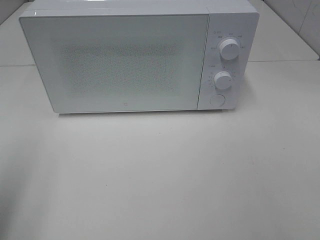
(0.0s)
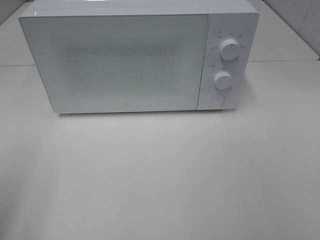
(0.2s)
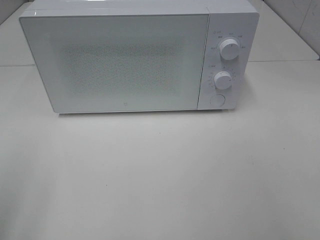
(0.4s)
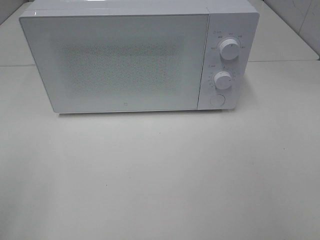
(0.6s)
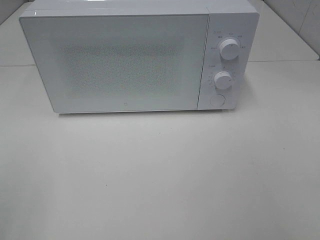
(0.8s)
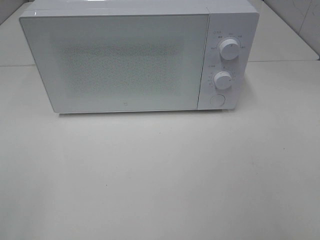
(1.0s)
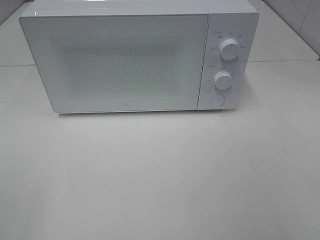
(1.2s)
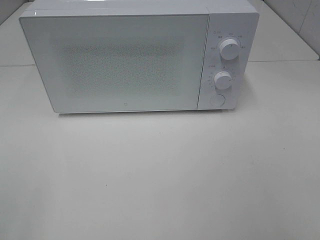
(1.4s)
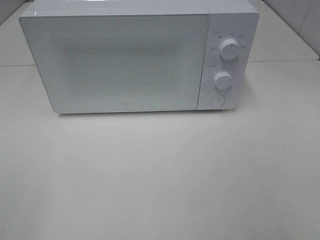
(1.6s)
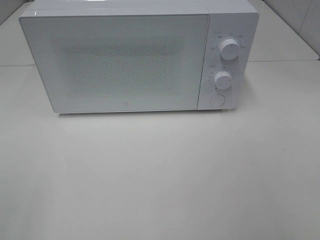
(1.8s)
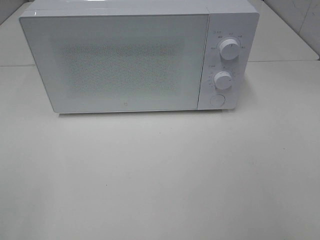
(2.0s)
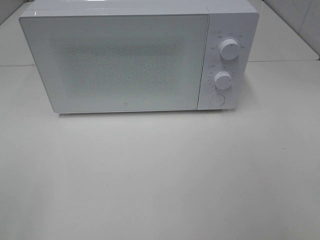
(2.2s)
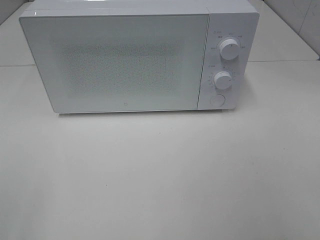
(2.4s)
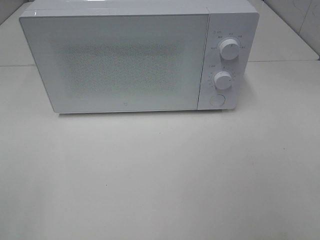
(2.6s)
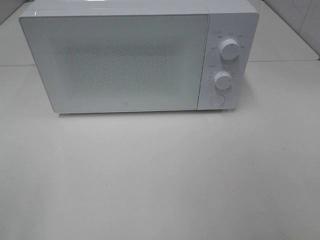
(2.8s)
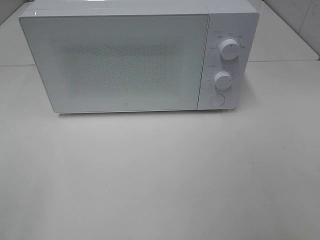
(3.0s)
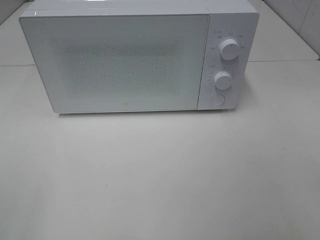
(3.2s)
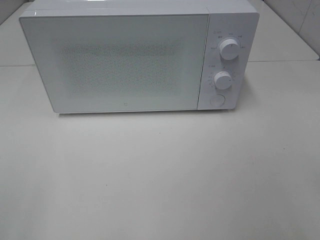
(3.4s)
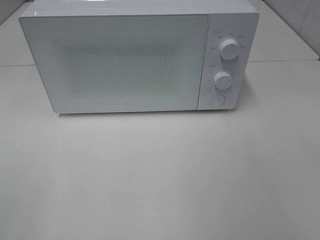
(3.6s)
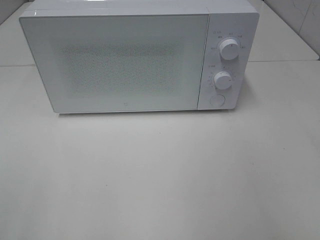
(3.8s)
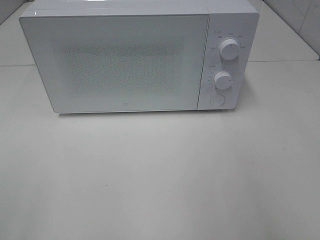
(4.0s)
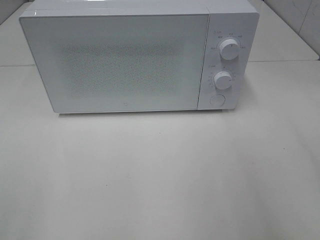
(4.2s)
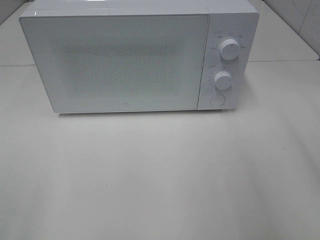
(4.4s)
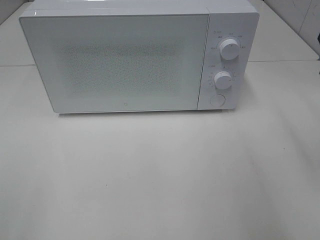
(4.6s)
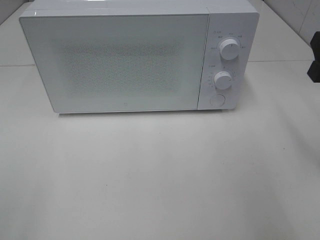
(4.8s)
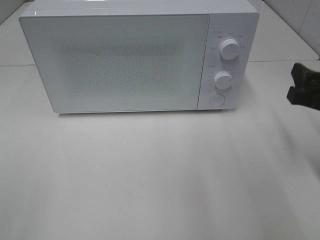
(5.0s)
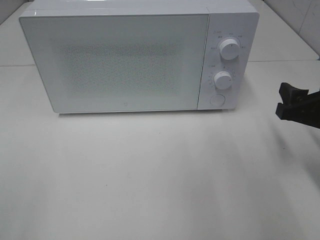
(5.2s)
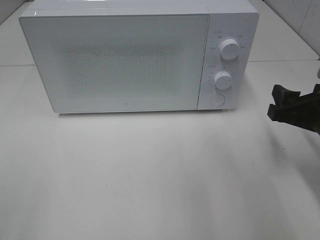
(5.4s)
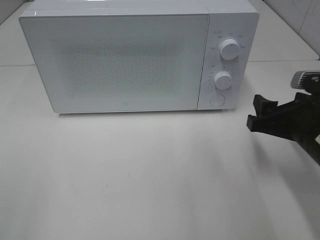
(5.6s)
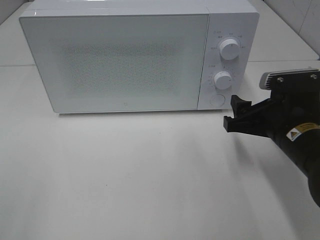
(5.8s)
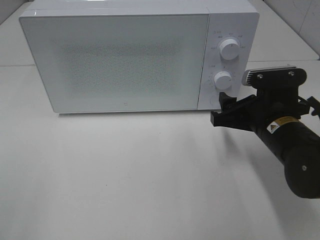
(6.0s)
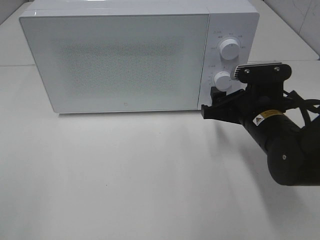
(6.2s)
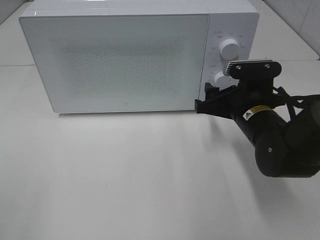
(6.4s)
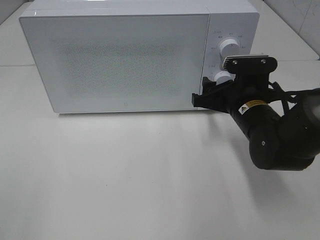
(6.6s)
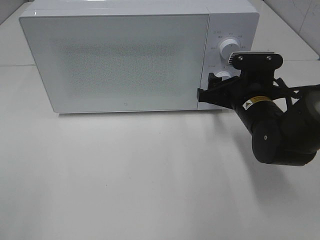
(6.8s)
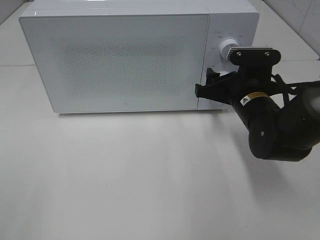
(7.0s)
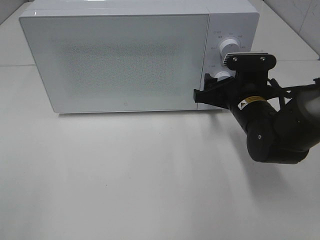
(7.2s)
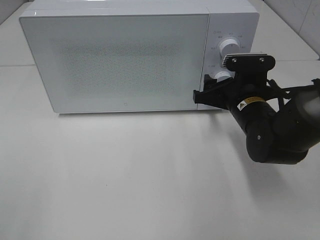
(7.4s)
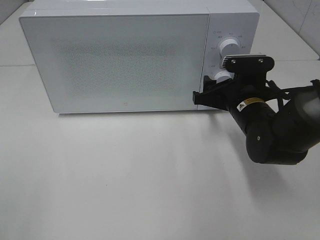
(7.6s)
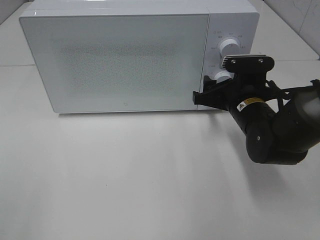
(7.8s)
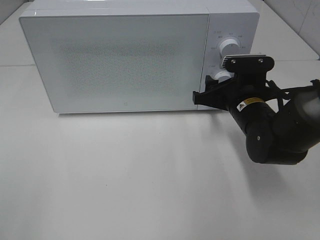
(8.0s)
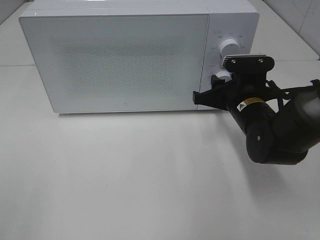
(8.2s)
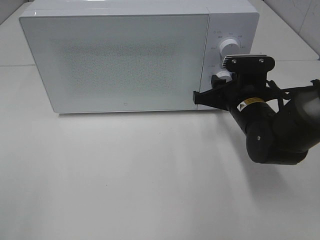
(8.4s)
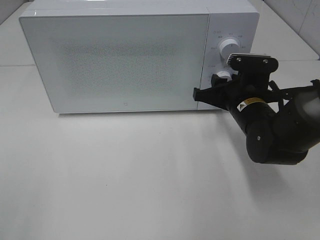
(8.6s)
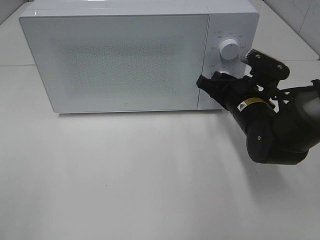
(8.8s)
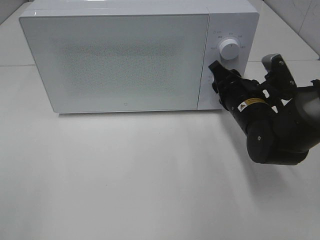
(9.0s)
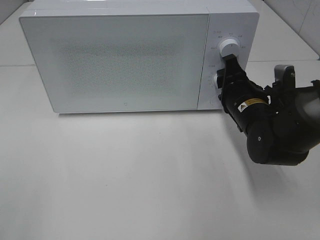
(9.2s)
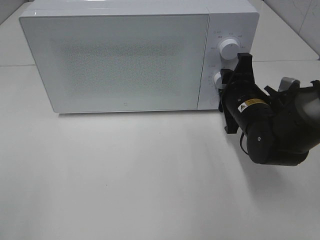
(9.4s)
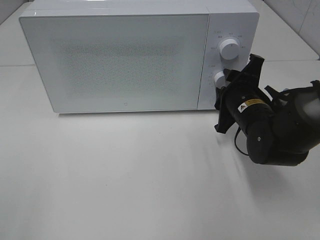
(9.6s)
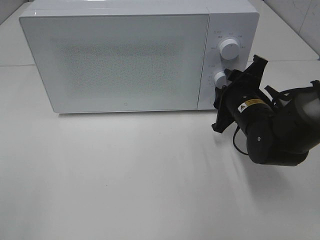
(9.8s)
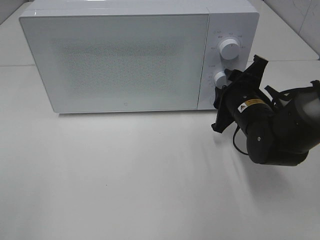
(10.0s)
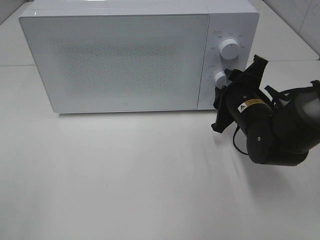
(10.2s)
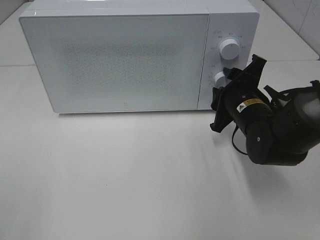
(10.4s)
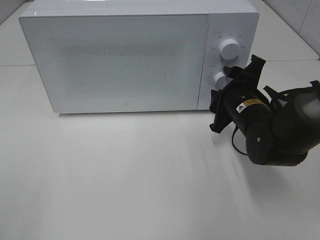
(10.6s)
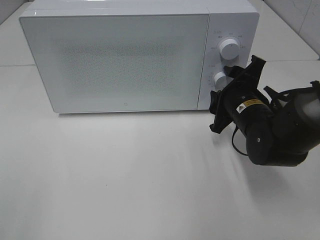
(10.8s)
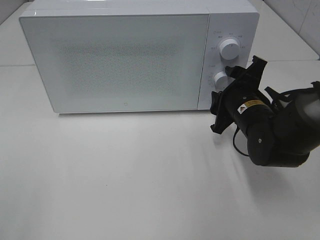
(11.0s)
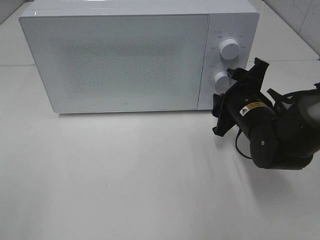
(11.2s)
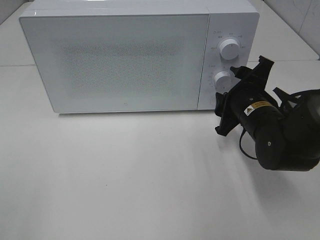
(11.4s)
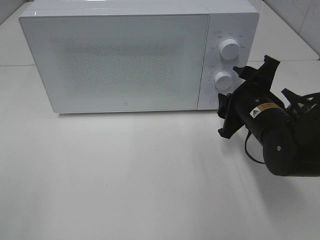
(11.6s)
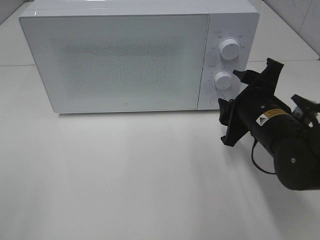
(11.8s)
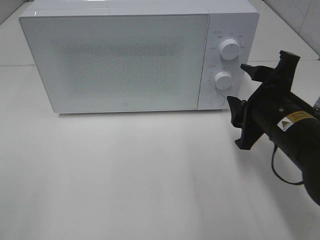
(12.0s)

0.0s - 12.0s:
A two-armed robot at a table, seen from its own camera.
Task of the whole recording: Heat the burger.
Step, 0.0s - 10.4s: Right hand: twist timer button.
0.0s - 1.6s: The left gripper moves backward, about 15 cm.
1.6s - 3.0s: Both grippers stay put.
4.4s - 6.0s: The right gripper shifts roughly 20 cm downward, forward and to the left.
6.0s - 7.6s: The right gripper heads forward, covering approximately 5 cm.
10.4s - 12.0s: The right gripper goes about 10 cm backward and upward.

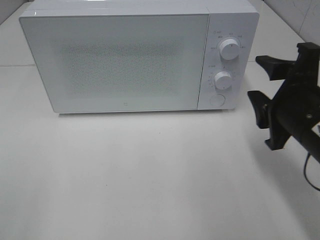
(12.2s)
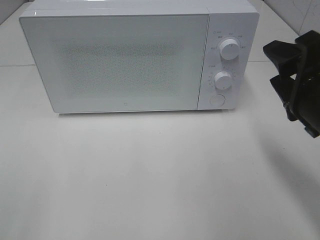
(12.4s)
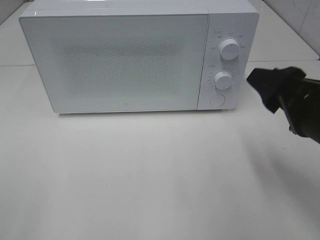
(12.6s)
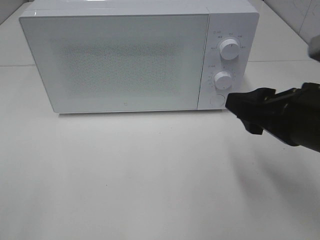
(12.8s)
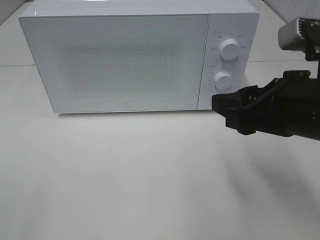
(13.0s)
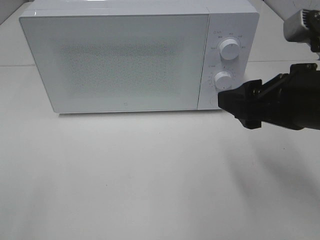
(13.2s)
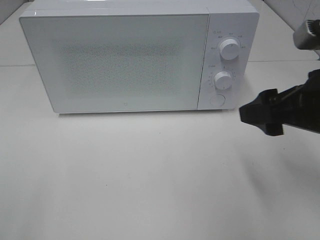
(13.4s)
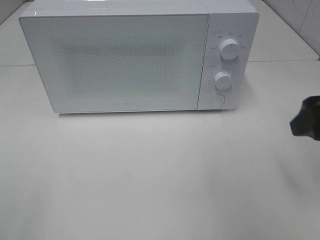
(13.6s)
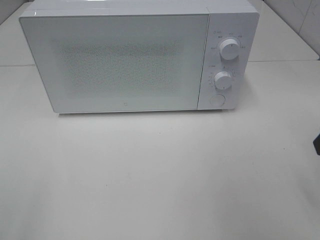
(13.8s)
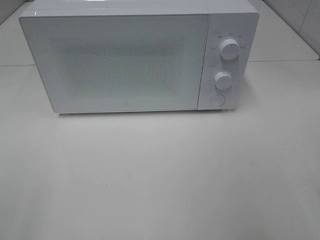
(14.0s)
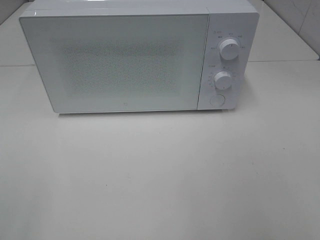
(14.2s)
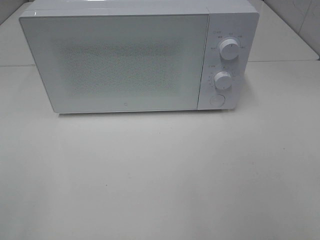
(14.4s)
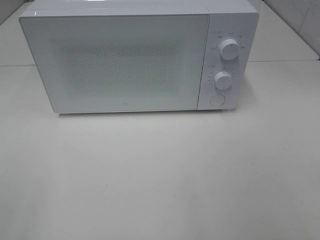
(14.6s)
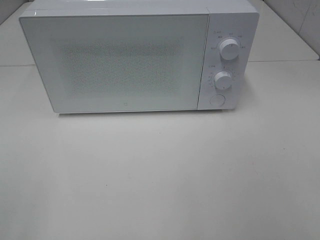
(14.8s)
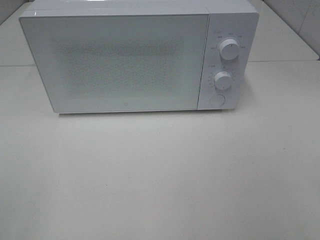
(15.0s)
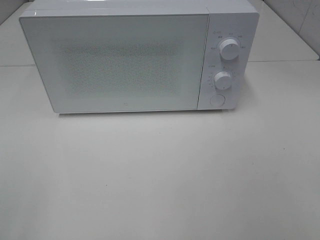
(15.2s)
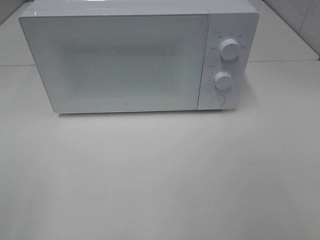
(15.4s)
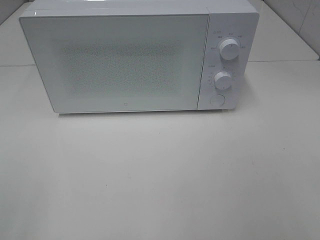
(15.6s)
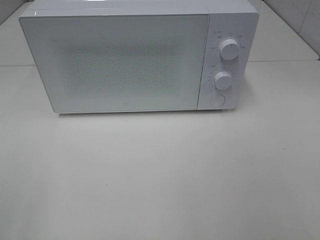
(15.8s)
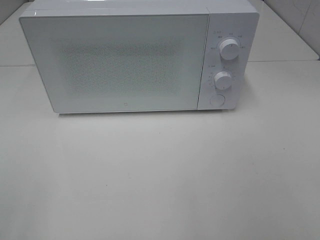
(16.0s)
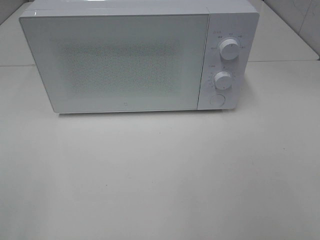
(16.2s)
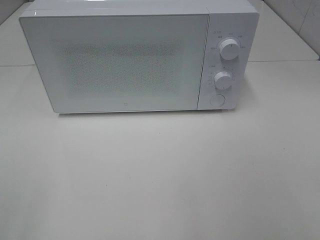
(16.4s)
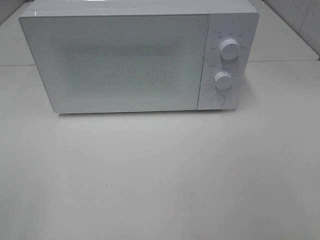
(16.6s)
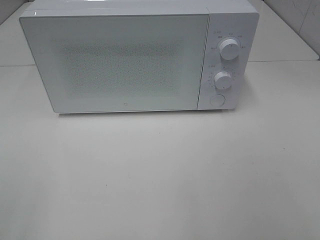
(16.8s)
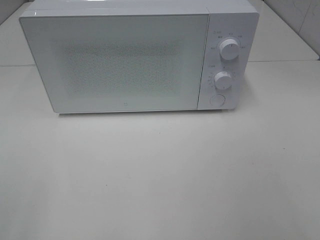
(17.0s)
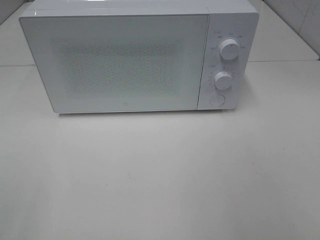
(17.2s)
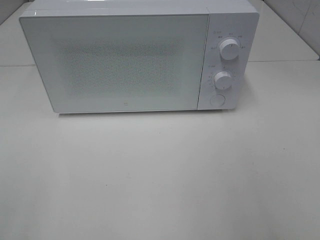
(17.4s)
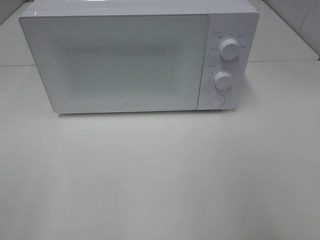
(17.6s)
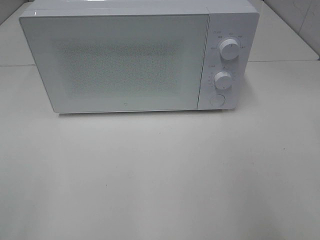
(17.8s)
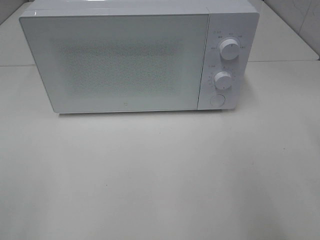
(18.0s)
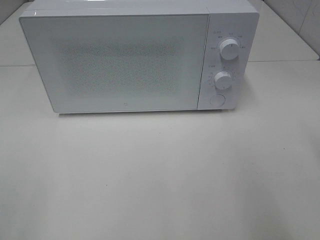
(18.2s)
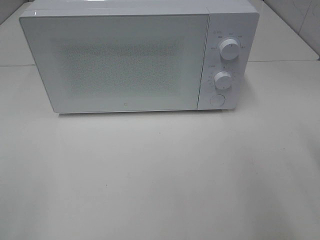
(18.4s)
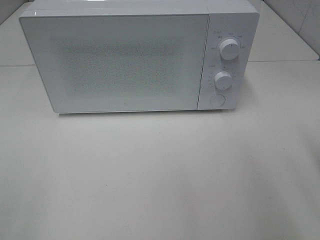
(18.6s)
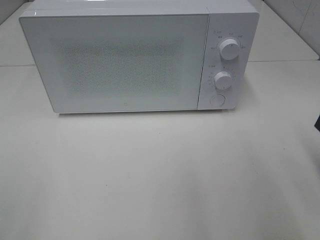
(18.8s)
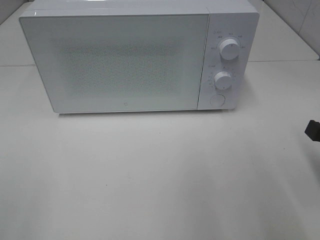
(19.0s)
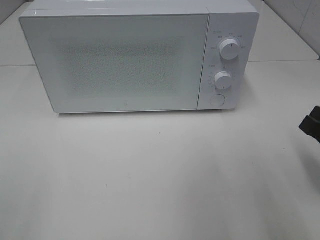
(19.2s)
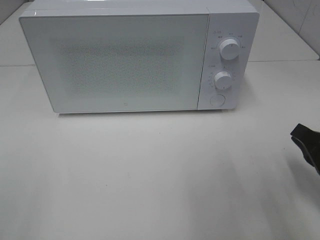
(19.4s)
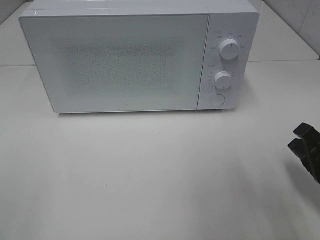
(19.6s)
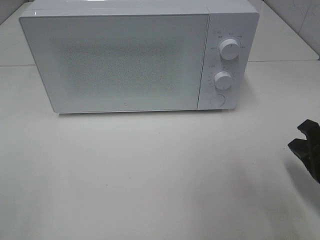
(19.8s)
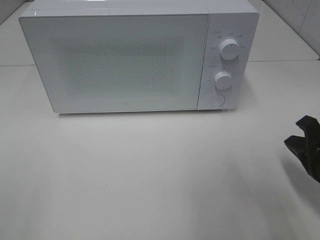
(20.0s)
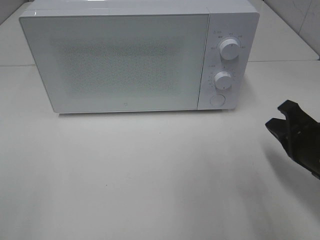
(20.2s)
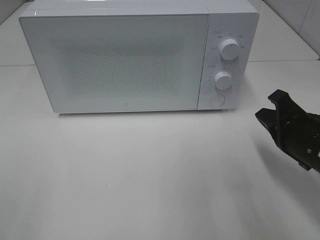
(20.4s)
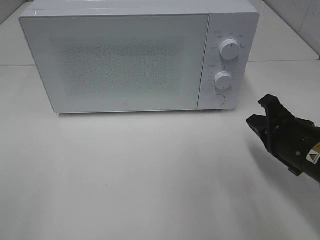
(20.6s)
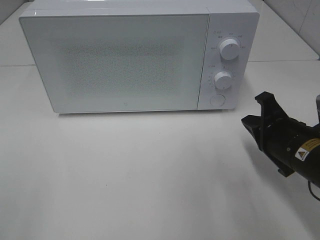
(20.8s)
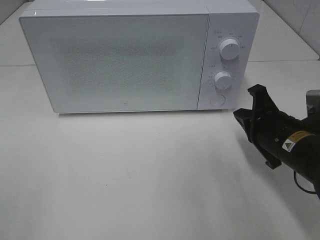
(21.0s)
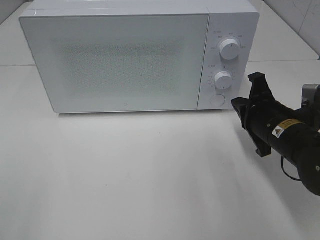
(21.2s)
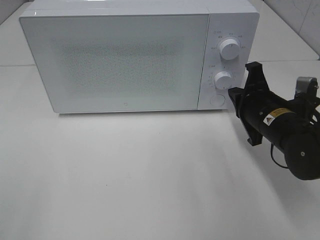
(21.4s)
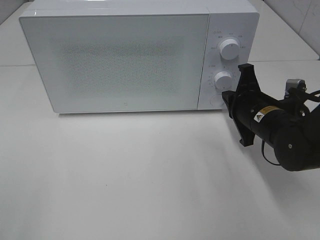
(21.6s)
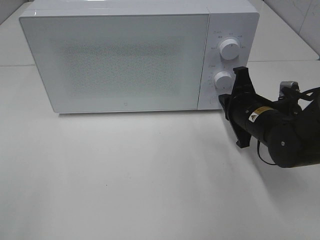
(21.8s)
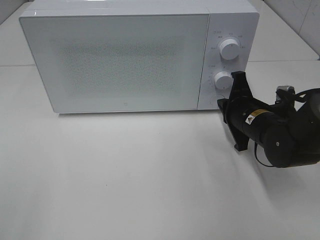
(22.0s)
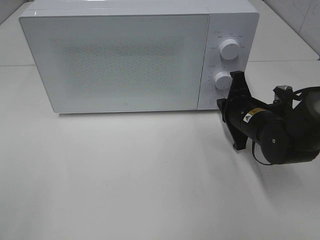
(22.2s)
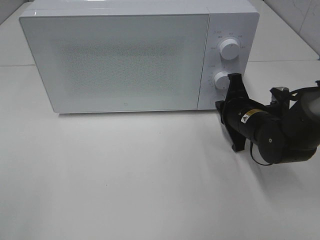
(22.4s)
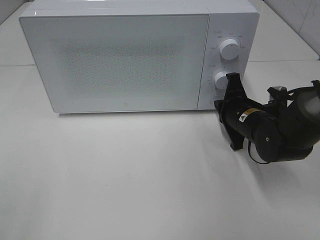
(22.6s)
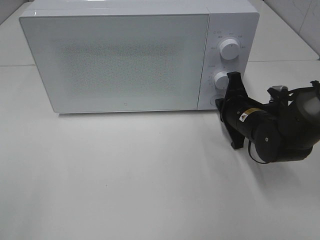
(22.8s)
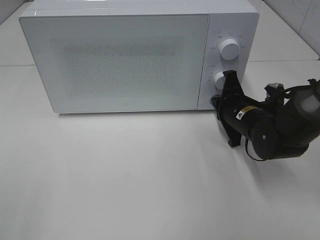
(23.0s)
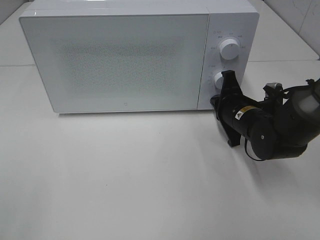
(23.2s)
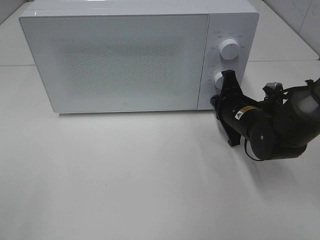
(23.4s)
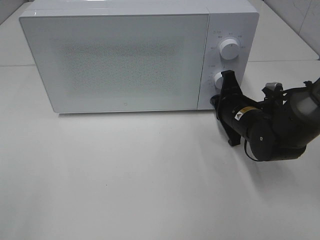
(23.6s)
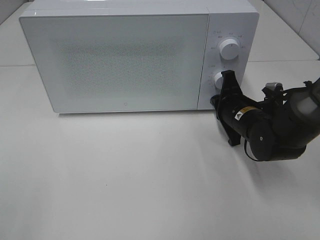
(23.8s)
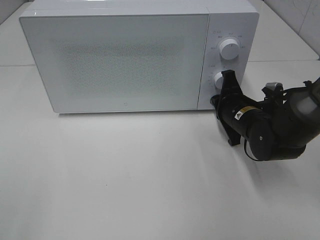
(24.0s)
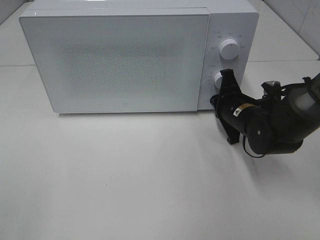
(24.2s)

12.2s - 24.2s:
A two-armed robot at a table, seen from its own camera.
Task of the whole recording: Heat the burger.
12.2s - 13.8s: The right gripper travels to the right and upward by approximately 10 cm.
15.2s - 16.6s: The two grippers keep their place.
18.2s - 19.8s: The right gripper moves downward, about 10 cm.
19.8s - 21.2s: The right gripper heads forward and to the left, covering some 10 cm.
21.2s - 22.6s: The right gripper goes some 5 cm forward.
22.6s - 24.2s: The grippers stay close to where they were, moving slightly.
